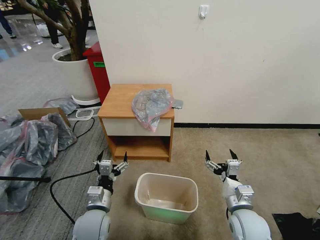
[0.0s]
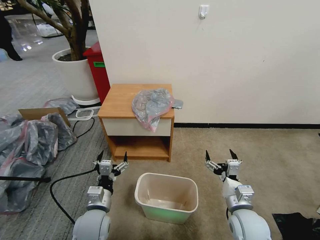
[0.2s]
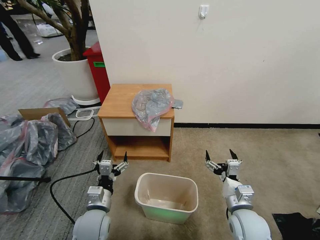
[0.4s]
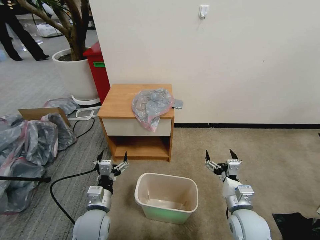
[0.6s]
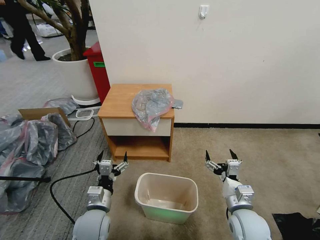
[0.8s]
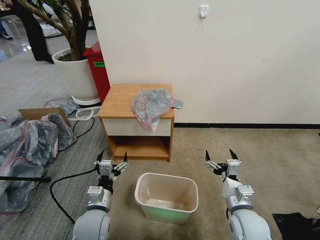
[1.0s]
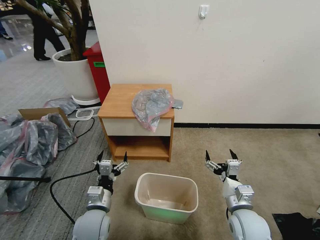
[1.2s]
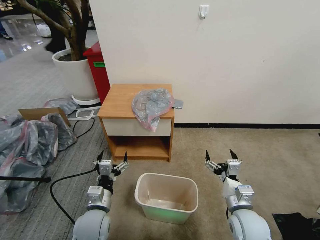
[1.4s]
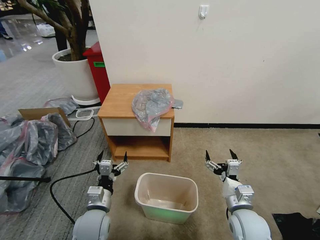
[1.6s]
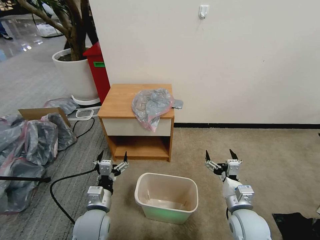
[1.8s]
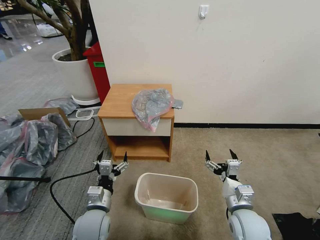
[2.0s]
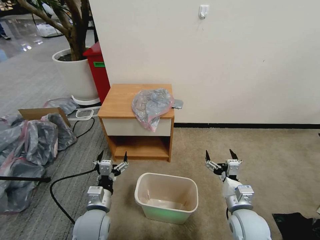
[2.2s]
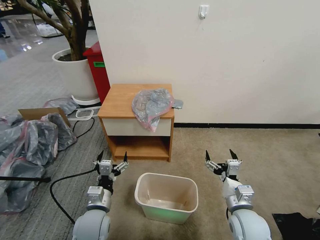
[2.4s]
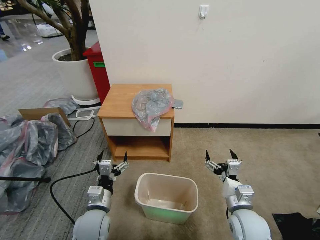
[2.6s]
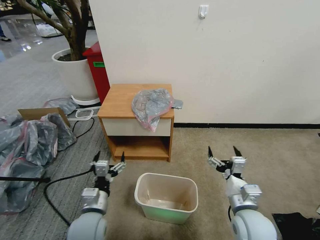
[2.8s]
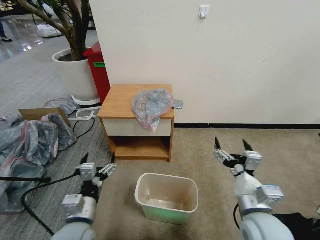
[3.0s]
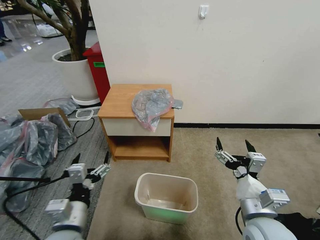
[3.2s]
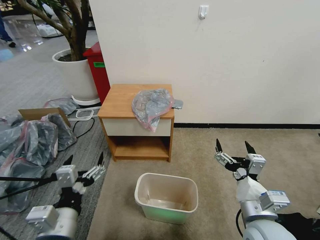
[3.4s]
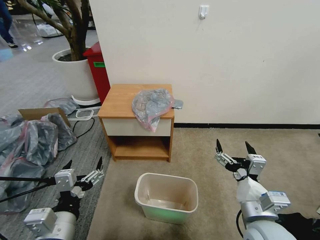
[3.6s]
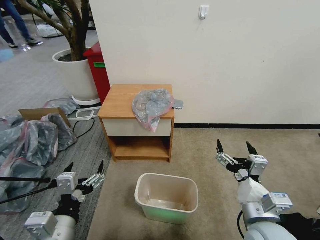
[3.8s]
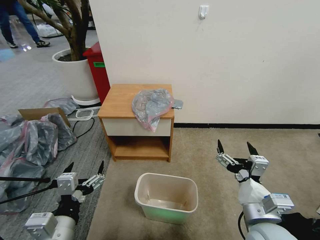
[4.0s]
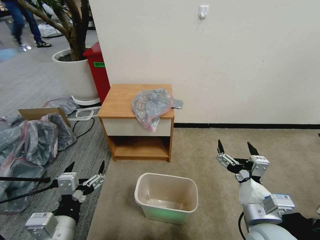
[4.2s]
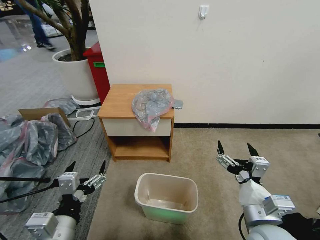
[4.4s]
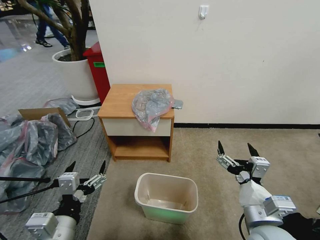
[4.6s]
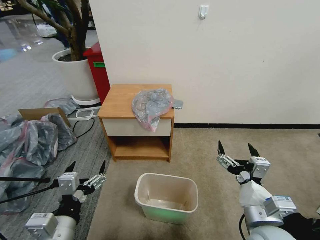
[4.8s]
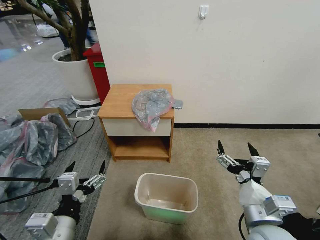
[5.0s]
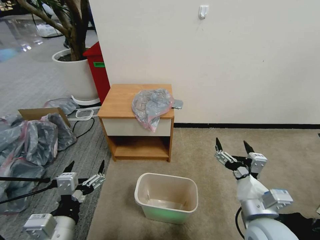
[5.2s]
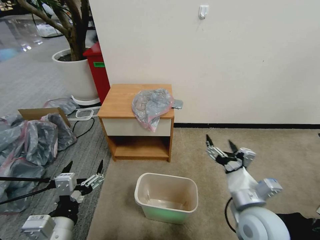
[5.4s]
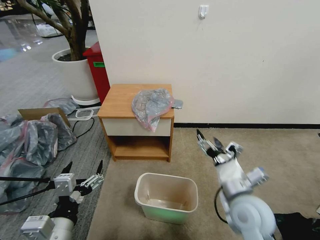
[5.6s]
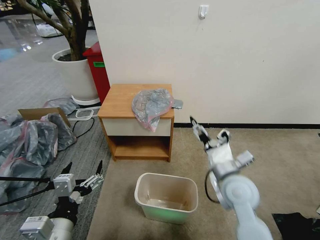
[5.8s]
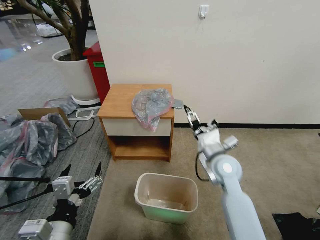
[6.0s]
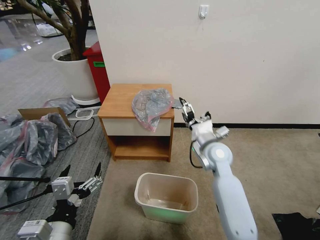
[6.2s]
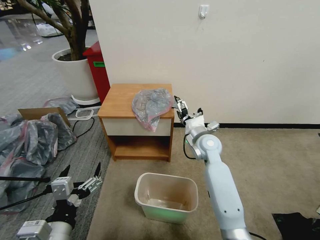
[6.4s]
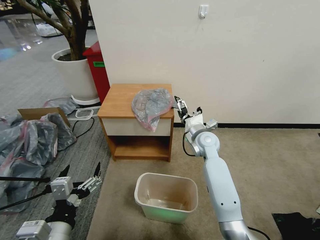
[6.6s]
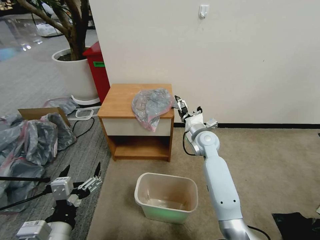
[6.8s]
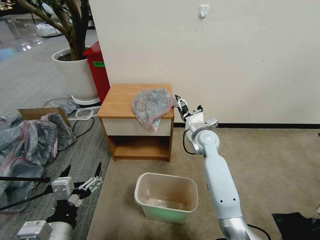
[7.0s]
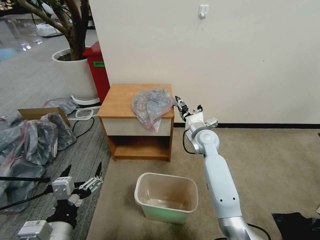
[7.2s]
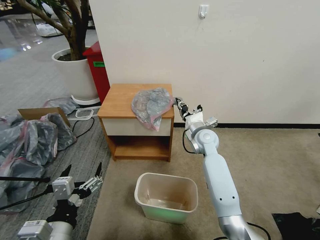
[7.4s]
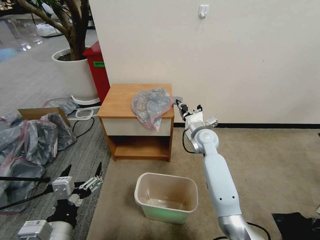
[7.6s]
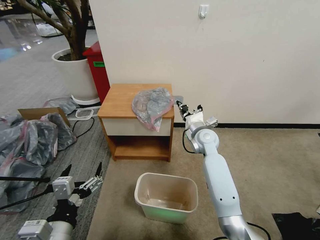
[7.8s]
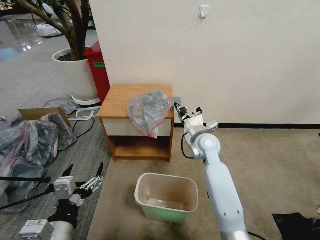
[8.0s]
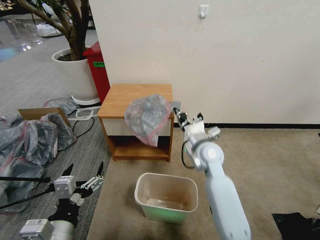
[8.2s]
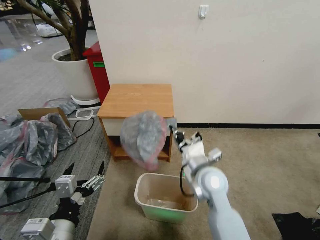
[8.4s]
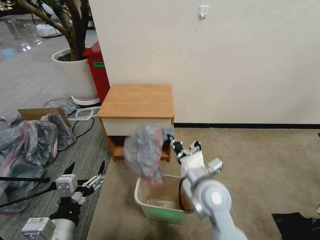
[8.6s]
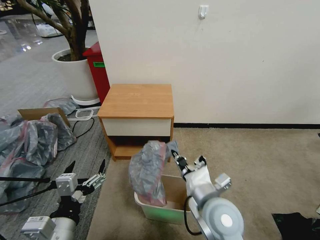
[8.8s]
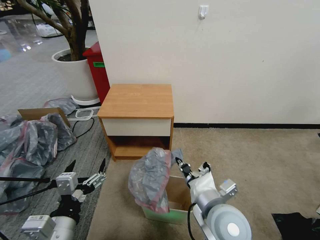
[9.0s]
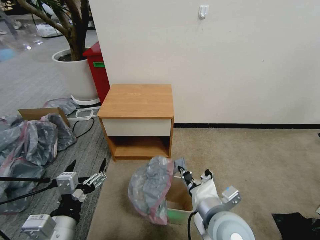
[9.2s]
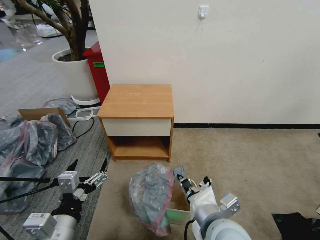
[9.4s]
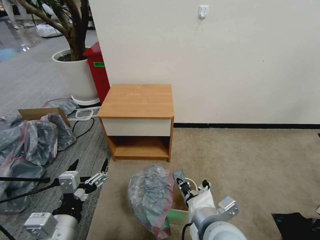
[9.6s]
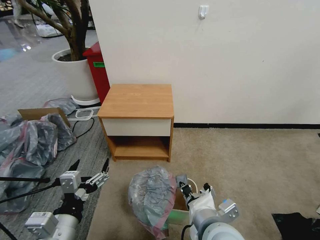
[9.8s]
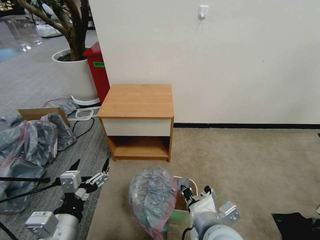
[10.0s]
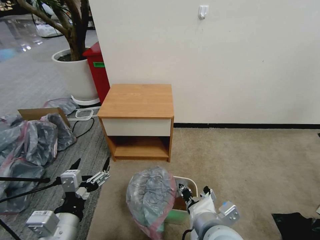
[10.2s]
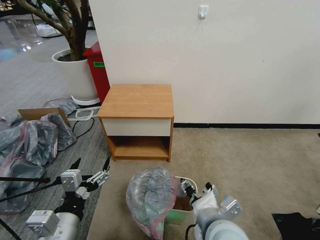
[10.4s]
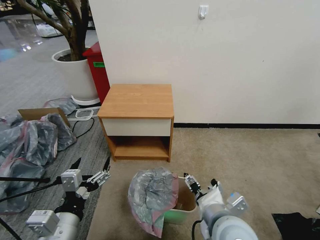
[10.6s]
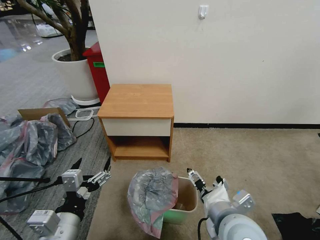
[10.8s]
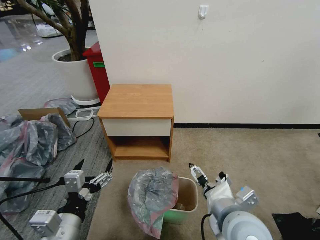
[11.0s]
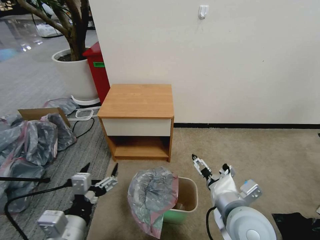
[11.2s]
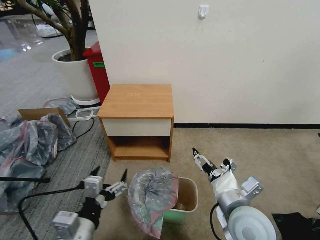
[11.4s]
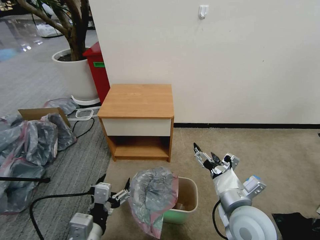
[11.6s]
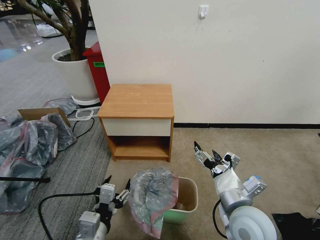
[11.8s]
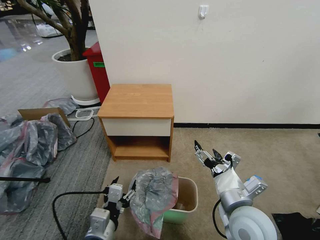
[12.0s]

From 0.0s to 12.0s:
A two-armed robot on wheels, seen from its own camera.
Task of the whole recording: Pick up the garbage bag from the table and place it over the trash can.
From 1.6s to 3.0s: The right gripper shifts roughly 10 cm upward; the left gripper shifts roughly 5 cm upward.
From 3.0s to 4.4s: The left gripper travels upward and backward by approximately 10 cm.
From 4.4s to 6.0s: The right gripper is displaced forward by roughly 20 cm.
From 6.0s to 7.6s: The right gripper shifts some 15 cm forward, and closes.
From 7.6s to 9.0s: The right gripper heads backward, covering about 30 cm.
From 9.0s to 10.4s: The right gripper opens up.
From 10.4s to 12.0s: The left gripper heads downward and to the right, covering approximately 10 cm; the right gripper shifts some 5 cm to the right, and opens its fingers.

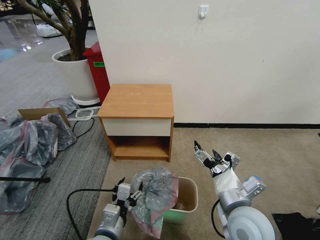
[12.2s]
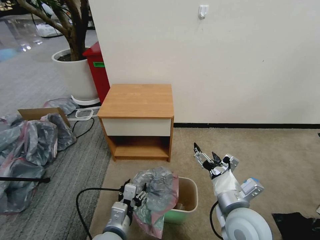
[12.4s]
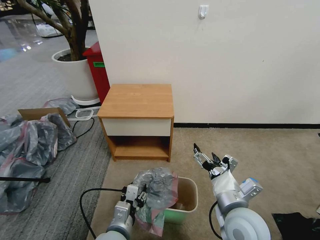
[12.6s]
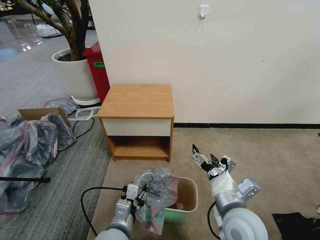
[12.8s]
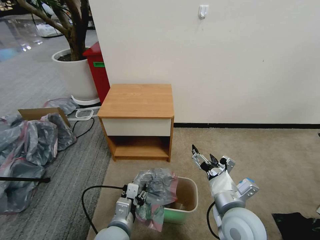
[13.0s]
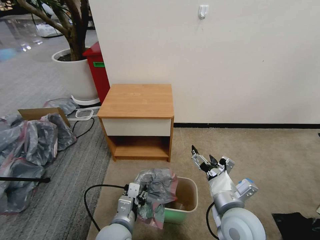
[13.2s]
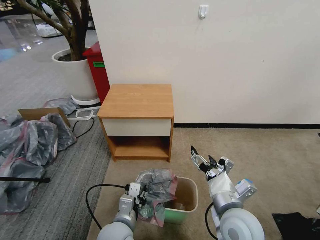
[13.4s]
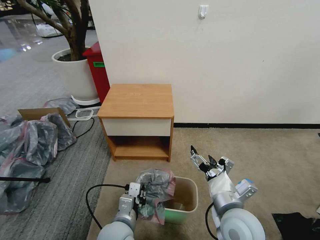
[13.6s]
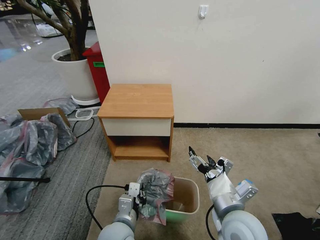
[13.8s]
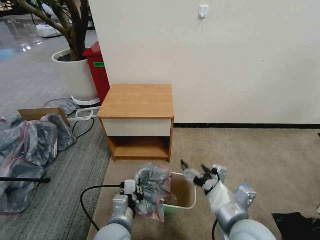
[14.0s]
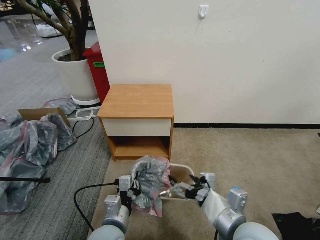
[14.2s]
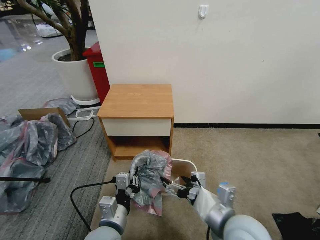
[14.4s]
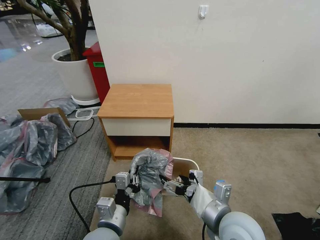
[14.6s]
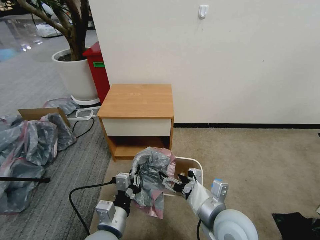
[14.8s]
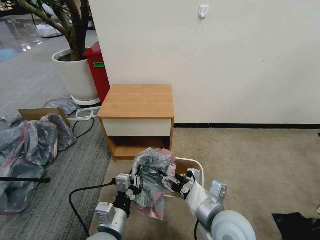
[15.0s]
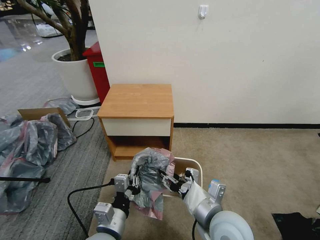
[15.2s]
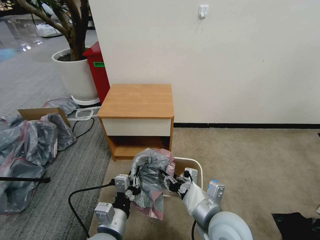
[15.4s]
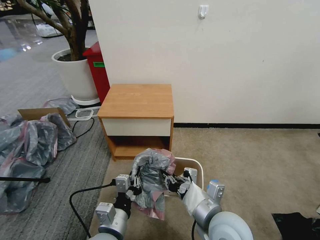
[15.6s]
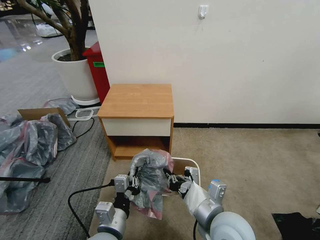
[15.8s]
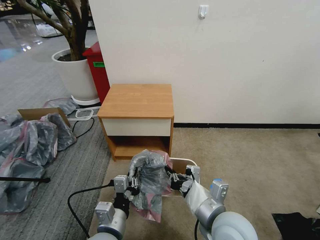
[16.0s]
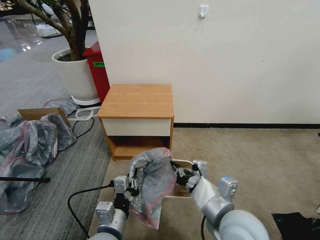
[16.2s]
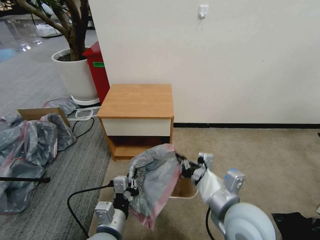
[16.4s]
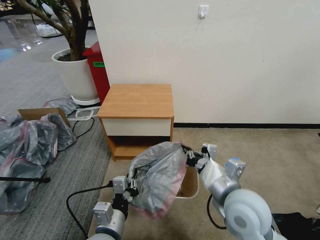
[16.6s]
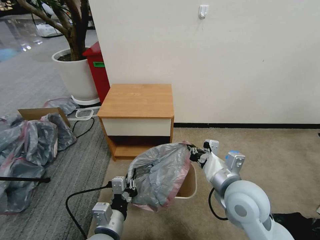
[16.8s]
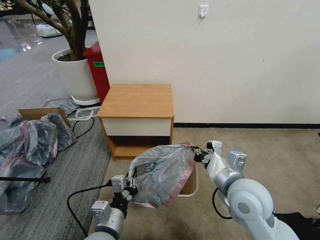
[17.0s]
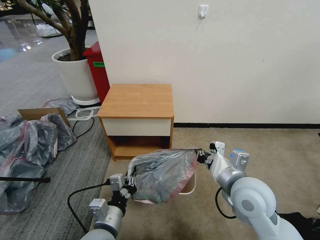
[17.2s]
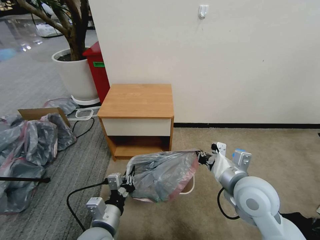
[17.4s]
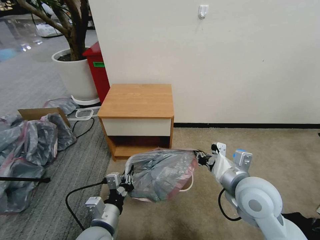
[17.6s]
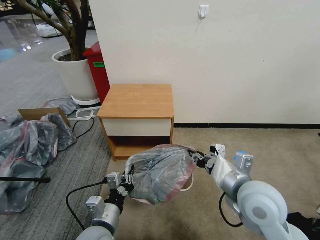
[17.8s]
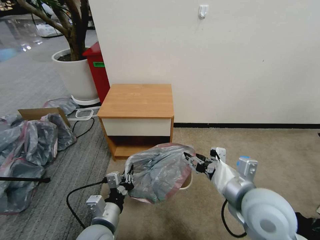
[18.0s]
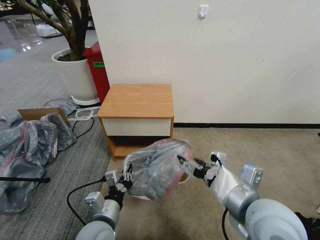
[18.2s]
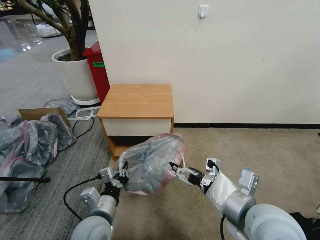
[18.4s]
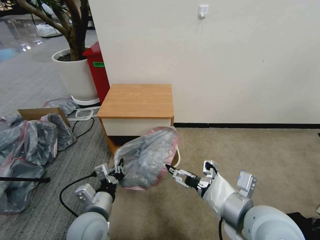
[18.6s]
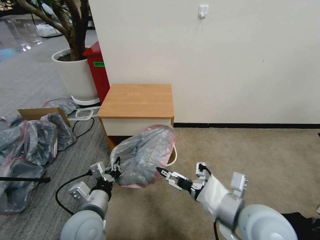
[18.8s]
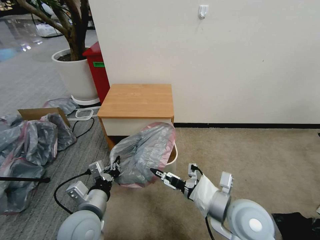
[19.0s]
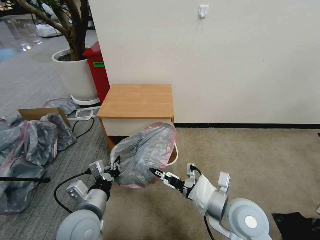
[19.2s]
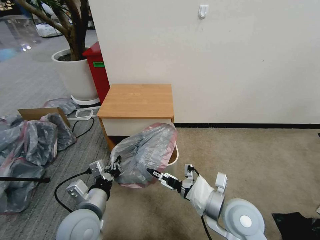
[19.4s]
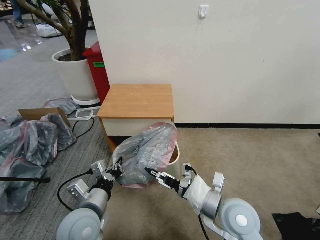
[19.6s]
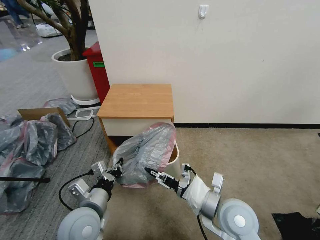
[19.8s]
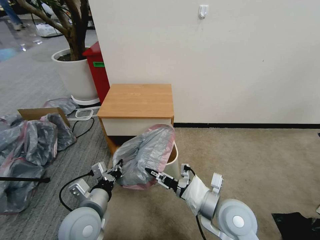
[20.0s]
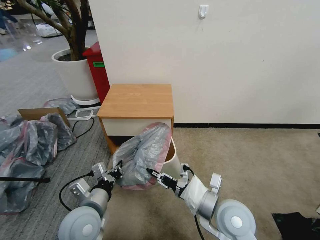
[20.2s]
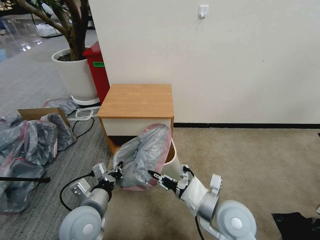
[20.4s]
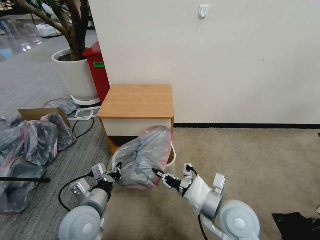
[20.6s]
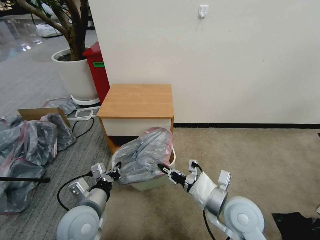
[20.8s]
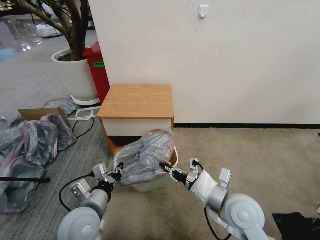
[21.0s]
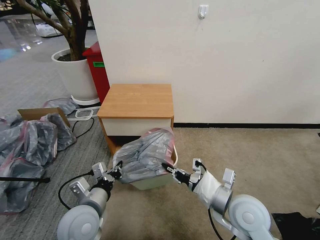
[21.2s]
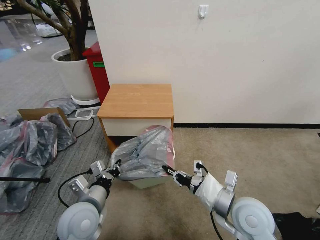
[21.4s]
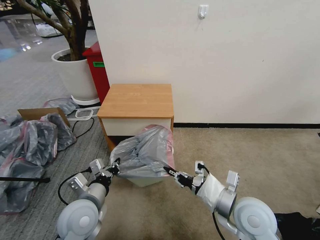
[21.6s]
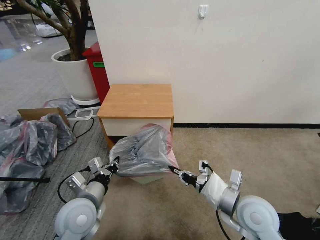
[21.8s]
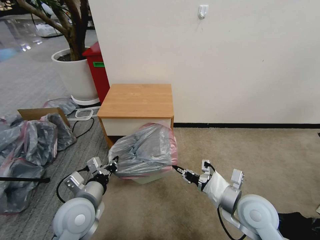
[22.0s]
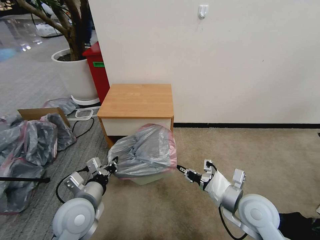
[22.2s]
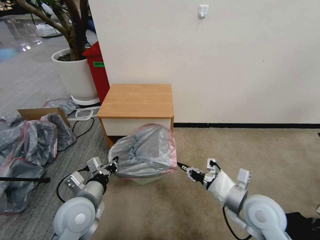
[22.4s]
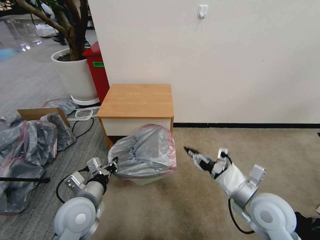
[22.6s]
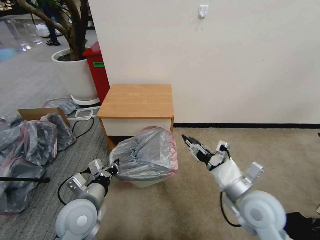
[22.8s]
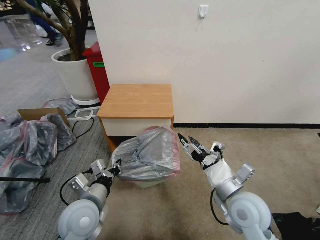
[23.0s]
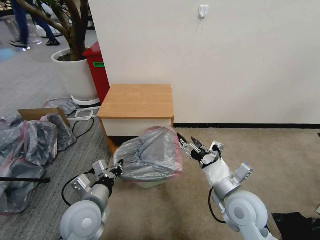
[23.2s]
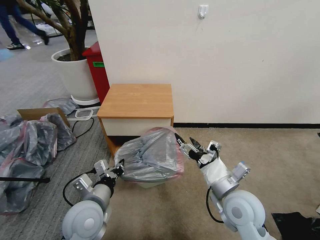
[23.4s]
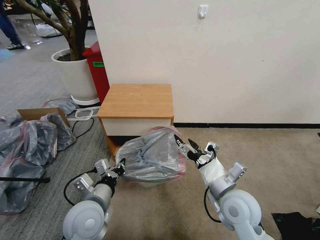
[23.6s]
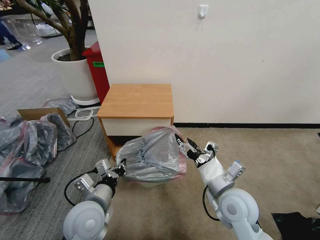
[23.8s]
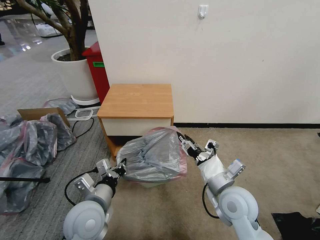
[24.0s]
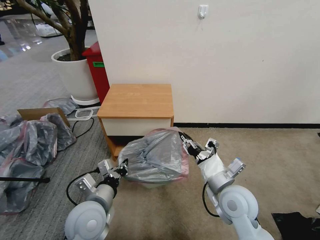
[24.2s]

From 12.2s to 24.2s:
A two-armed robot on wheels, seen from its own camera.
Task of the whole recording: Pick up the garbage bag from the table and place it over the trash can.
From 12.2s to 13.8s: The left gripper closes.
From 13.8s to 15.2s: The right gripper closes its fingers.
From 15.2s to 16.6s: The right gripper moves about 5 cm, and closes its fingers.
From 16.6s to 18.2s: The right gripper ends up roughly 5 cm from where it was, and opens.
From 18.2s to 19.8s: The left gripper ends up approximately 5 cm from where it was, while the right gripper travels downward by approximately 10 cm.
From 19.8s to 21.2s: The right gripper closes.
From 21.2s to 22.6s: The right gripper heads to the right, covering about 5 cm.
From 22.6s to 24.2s: The right gripper shifts about 5 cm to the left, and opens, then closes again.
